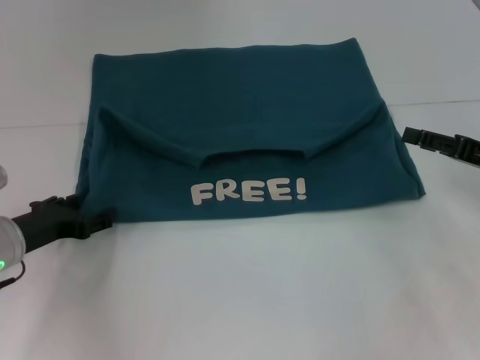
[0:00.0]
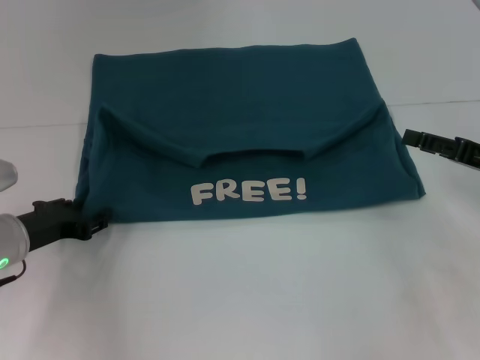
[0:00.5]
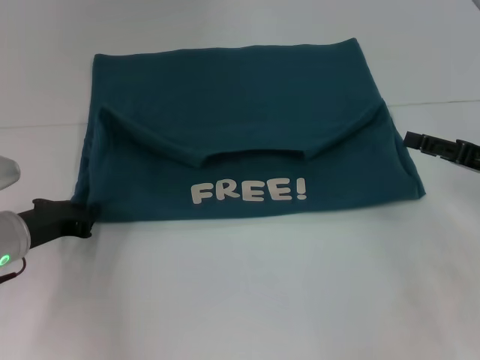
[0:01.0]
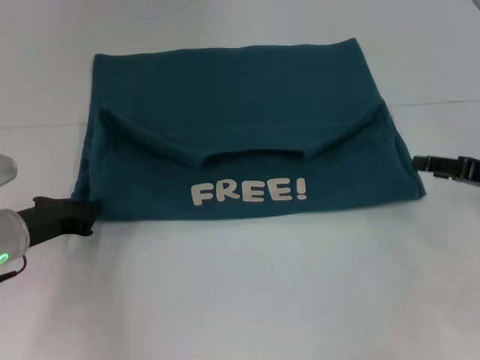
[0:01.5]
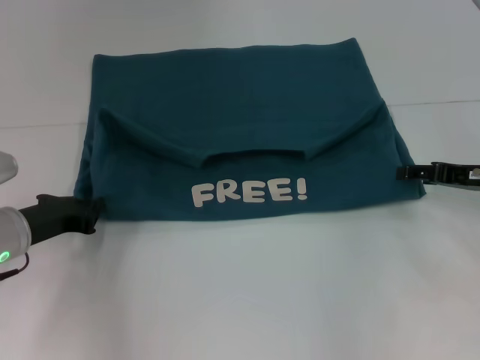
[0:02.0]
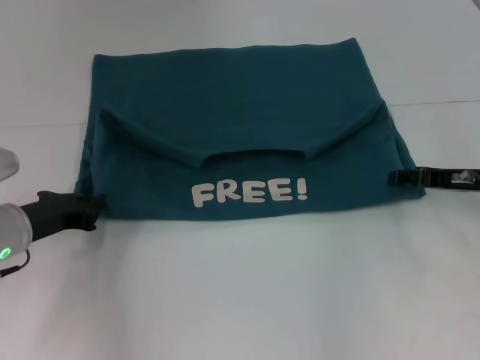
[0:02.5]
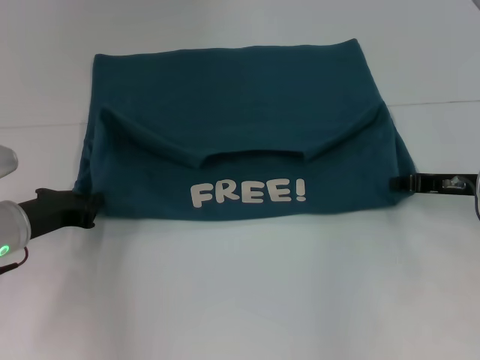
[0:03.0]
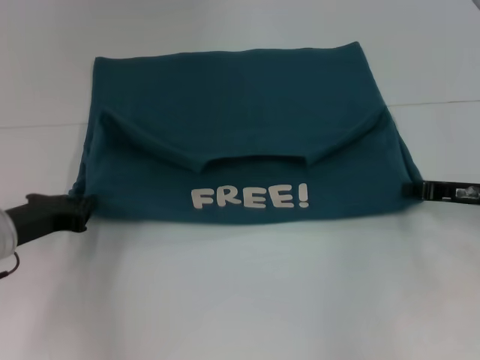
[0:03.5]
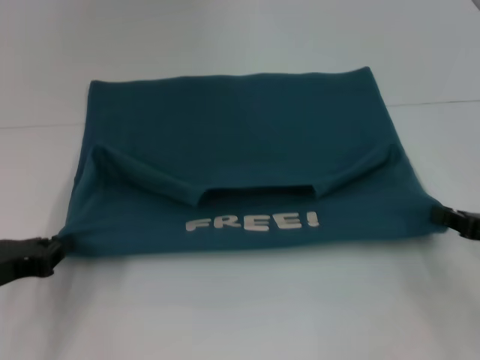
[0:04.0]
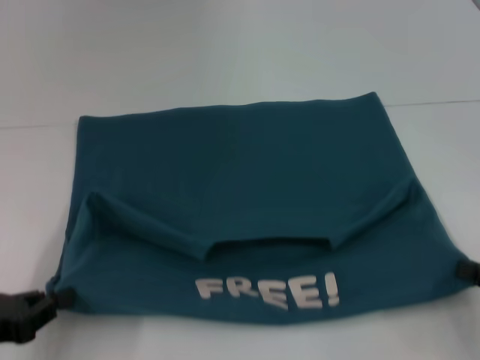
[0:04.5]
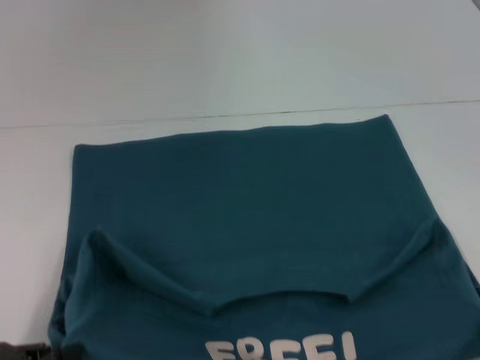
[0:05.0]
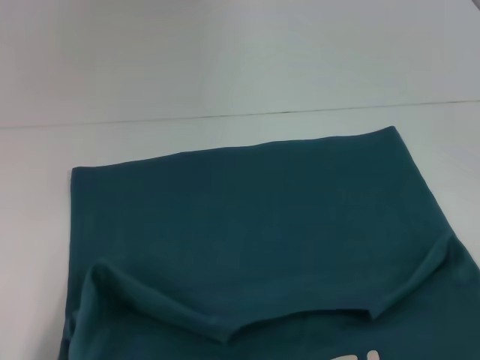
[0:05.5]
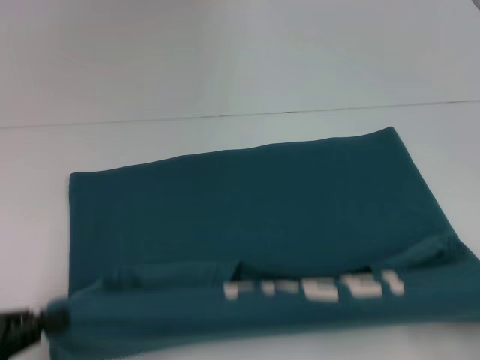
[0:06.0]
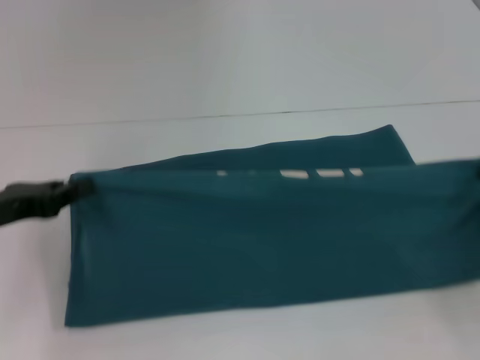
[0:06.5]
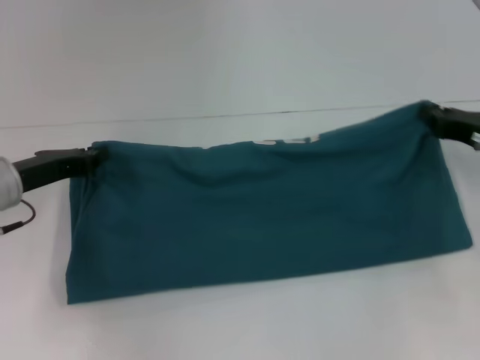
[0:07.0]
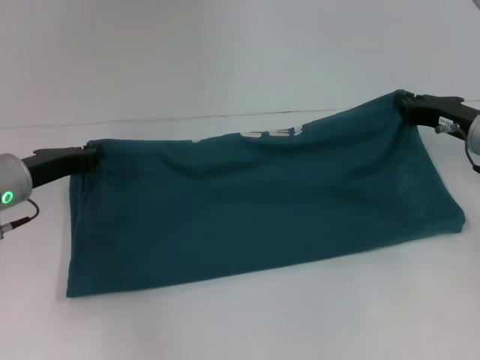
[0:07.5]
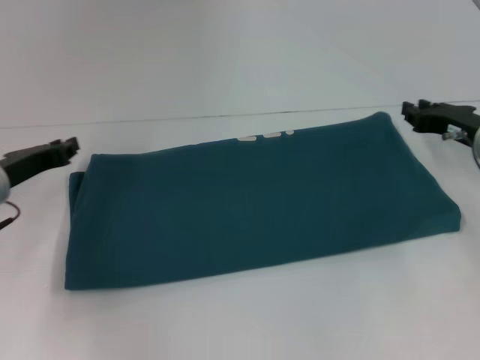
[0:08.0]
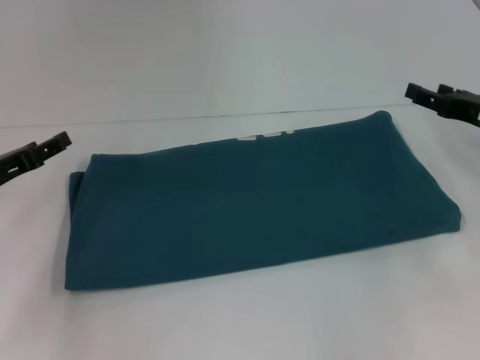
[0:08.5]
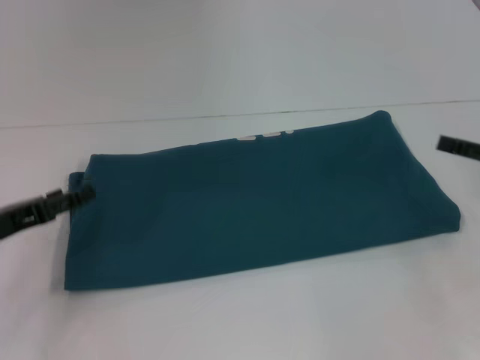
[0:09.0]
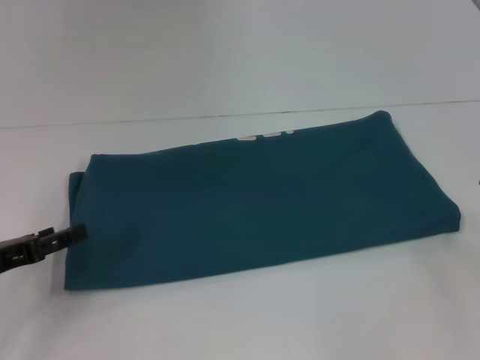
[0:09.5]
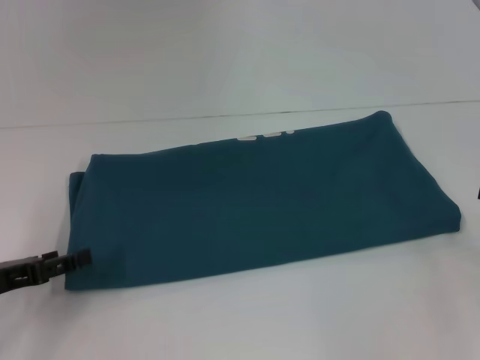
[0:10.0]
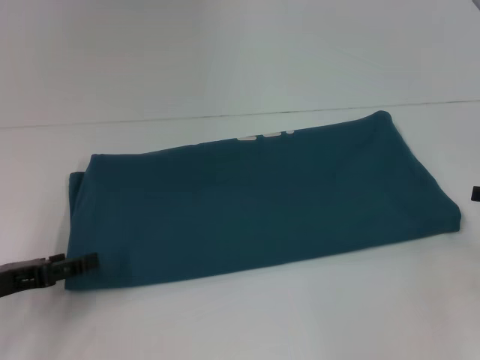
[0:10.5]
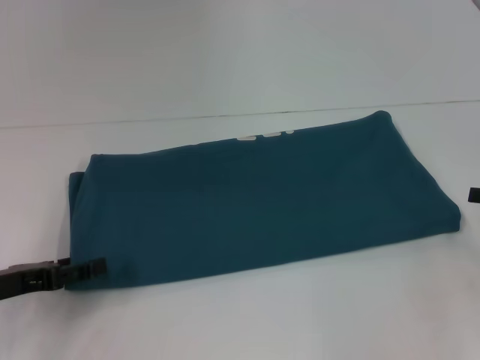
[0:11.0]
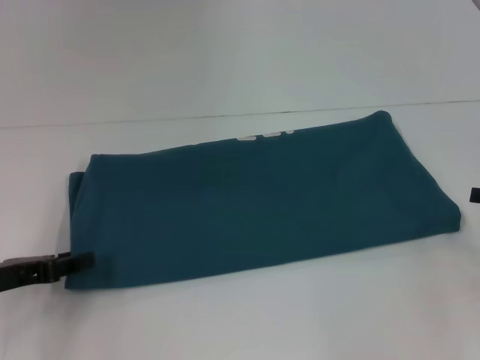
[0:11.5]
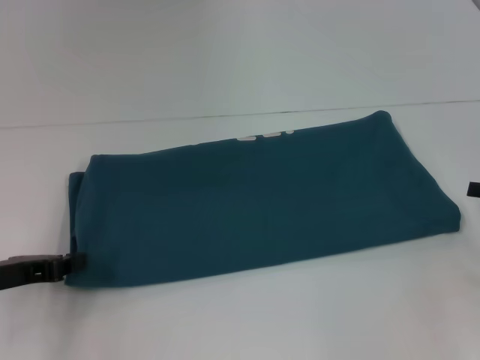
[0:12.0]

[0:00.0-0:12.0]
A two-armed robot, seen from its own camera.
Step, 0:00.0 to 0:05.0: Pull the clothes with your left hand.
Step, 0:00.0 to 0:05.0: Pull the clothes with your right hand.
Step, 0:05.5 to 0:08.0: Fold the clothes to the right.
0:00.0 to 0:02.0: The left gripper closes.
0:02.0 to 0:04.0: Both grippers move backward, about 10 cm. The right gripper closes up.
0:04.0 to 0:06.0: The left gripper shifts some 10 cm backward; the right gripper heads backward, covering some 15 cm.
0:06.0 to 0:08.0: The grippers both shift forward by some 25 cm.
0:08.0 to 0:10.0: The left gripper travels backward by some 10 cm, and opens its fingers; the right gripper goes some 15 cm backward and to the right, and opens up.

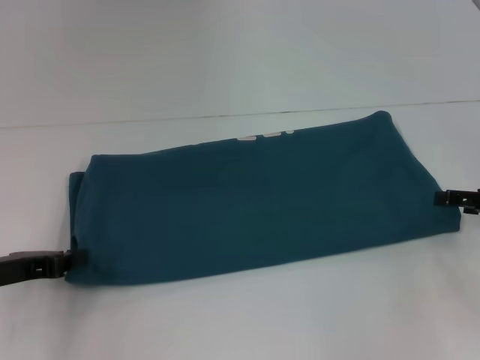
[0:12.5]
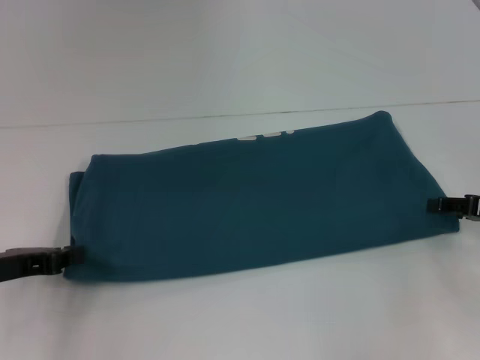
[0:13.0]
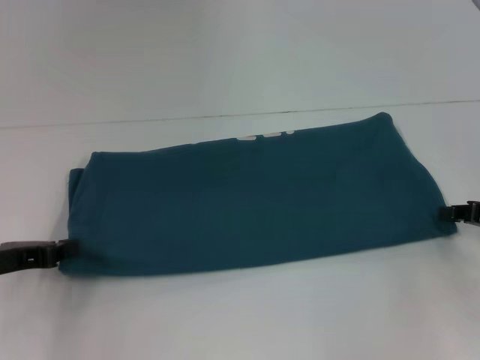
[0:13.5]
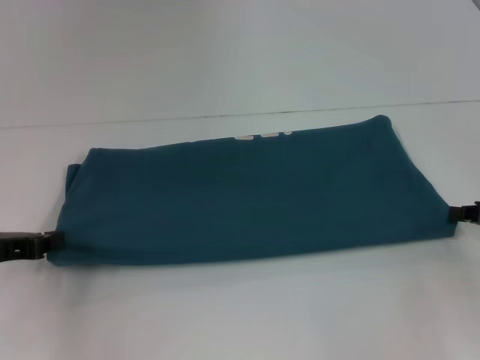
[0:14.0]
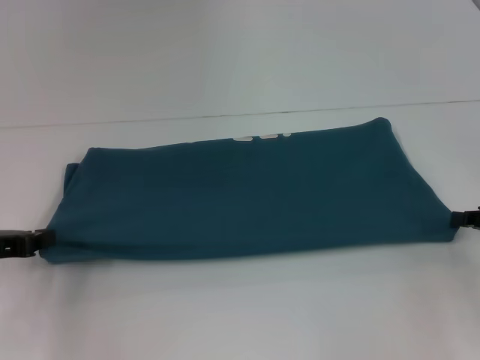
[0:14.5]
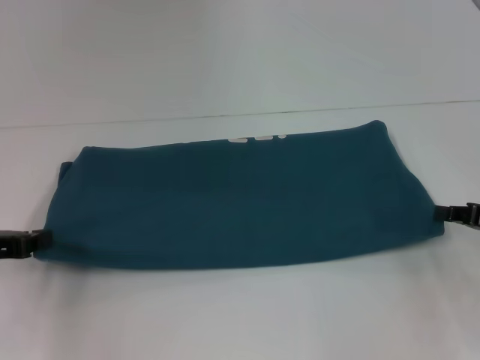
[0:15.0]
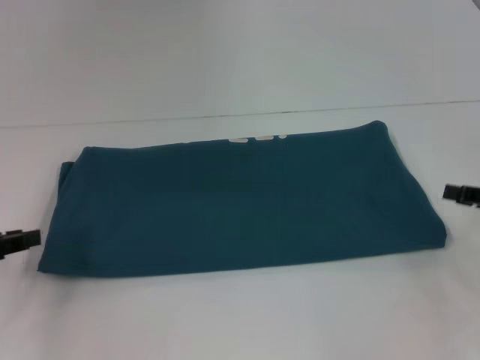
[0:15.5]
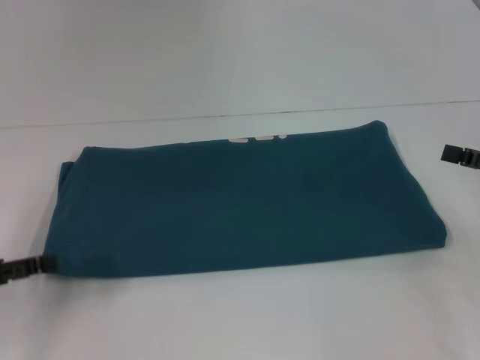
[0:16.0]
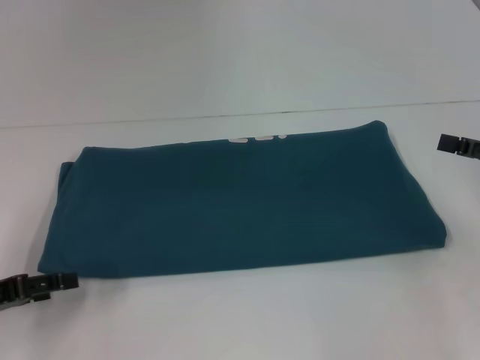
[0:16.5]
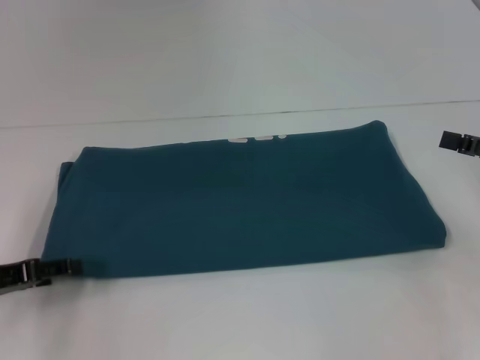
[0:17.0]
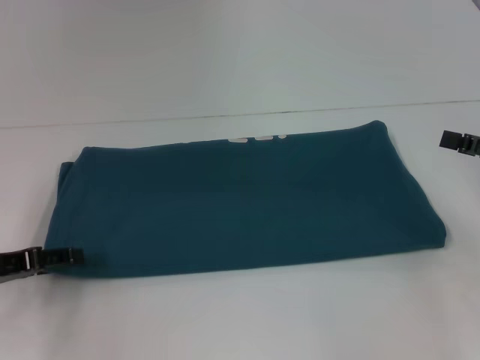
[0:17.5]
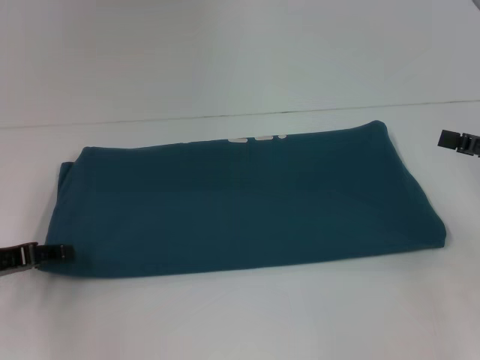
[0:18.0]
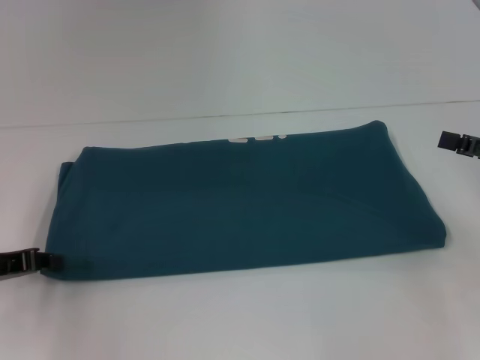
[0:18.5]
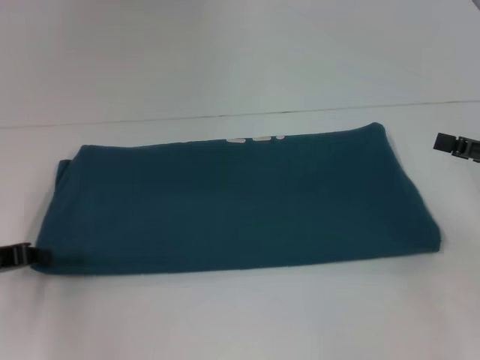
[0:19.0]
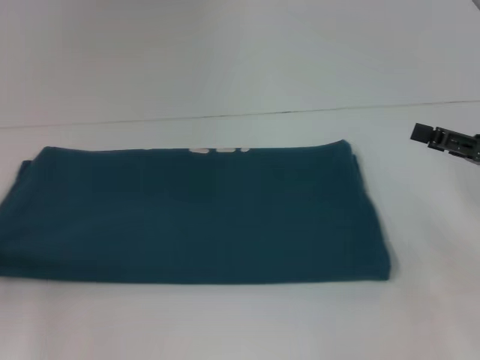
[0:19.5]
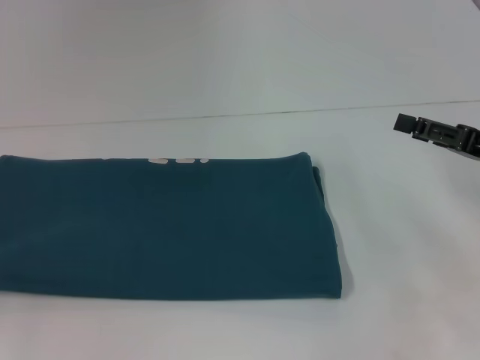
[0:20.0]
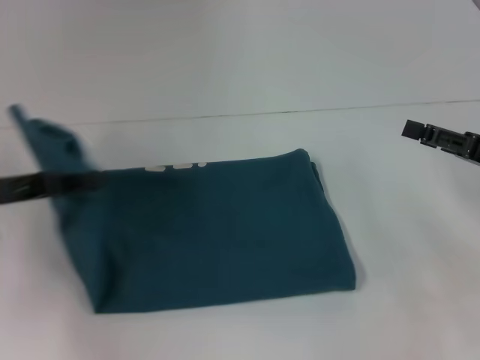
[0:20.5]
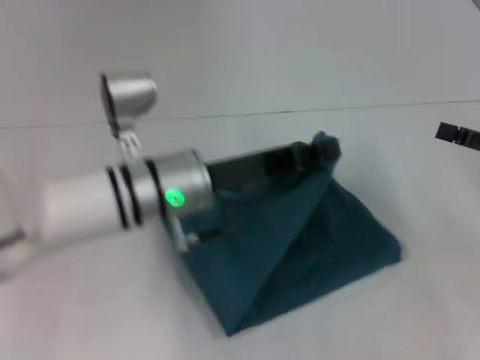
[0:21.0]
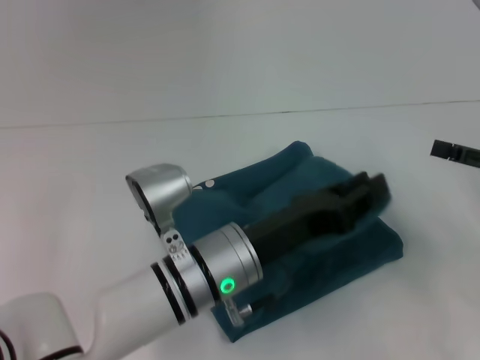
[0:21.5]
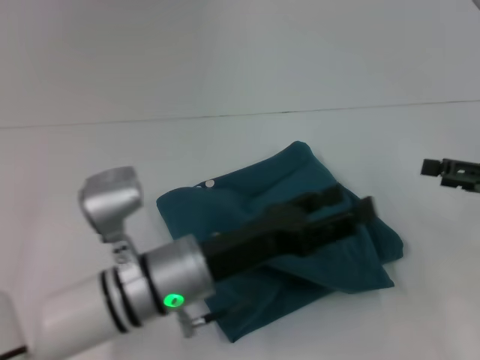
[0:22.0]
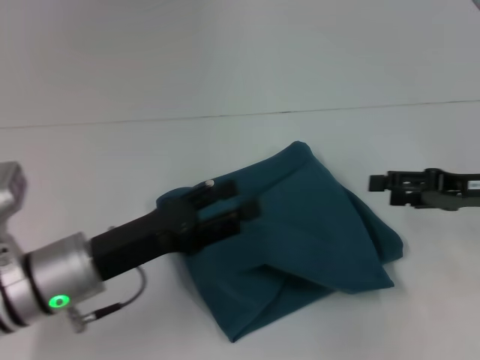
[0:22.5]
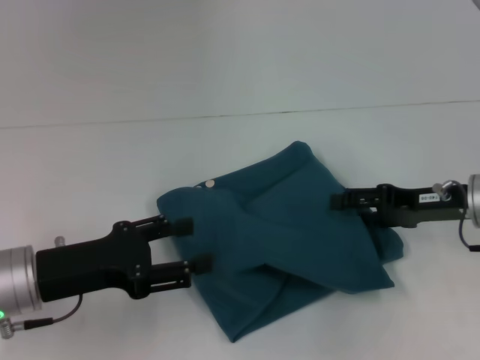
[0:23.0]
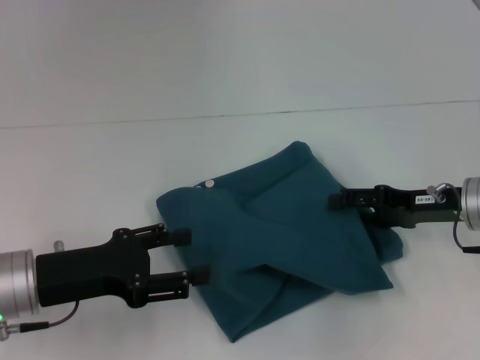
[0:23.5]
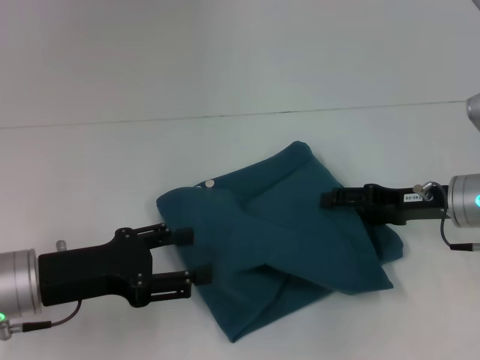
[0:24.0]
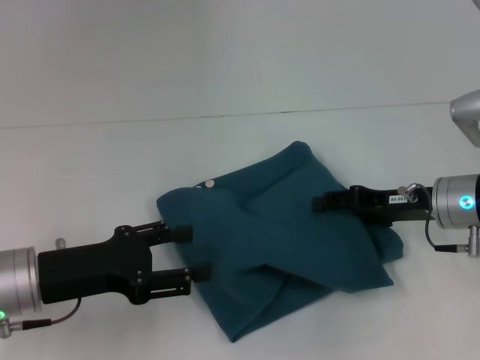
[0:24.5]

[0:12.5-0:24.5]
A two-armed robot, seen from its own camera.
Step, 0:12.5 to 0:21.5: Fold the clothes to the left.
0:12.5 to 0:14.5: The right gripper closes its fingers.
0:14.5 to 0:16.5: The left gripper opens. The right gripper shifts some 5 cm upward, and opens its fingers.
0:16.5 to 0:18.5: The left gripper closes its fingers.
0:18.5 to 0:20.5: The left gripper travels upward by some 5 cm, moves approximately 10 cm to the left and comes back, and closes.
0:20.5 to 0:22.5: The left gripper is displaced to the right and downward by about 15 cm, and opens.
0:22.5 to 0:24.5: The two grippers go roughly 5 cm to the left.

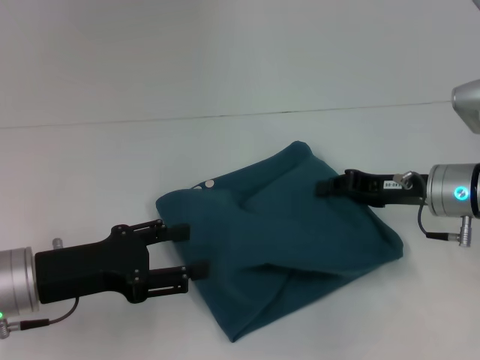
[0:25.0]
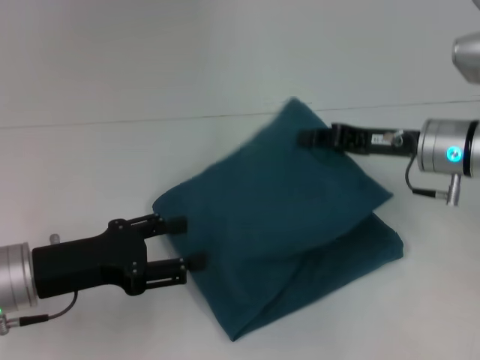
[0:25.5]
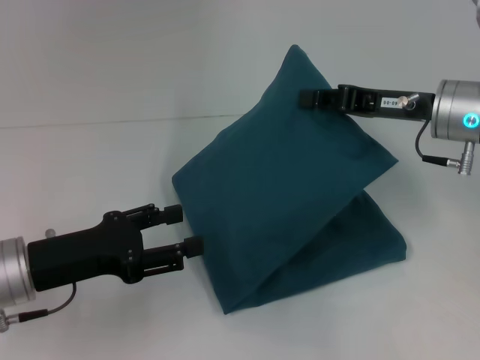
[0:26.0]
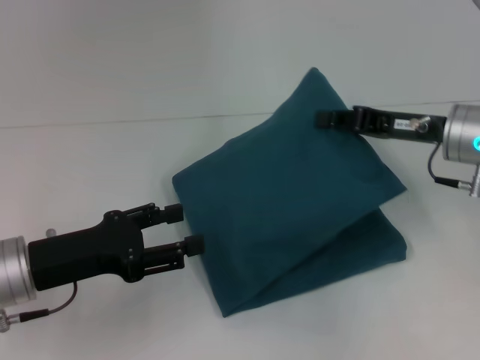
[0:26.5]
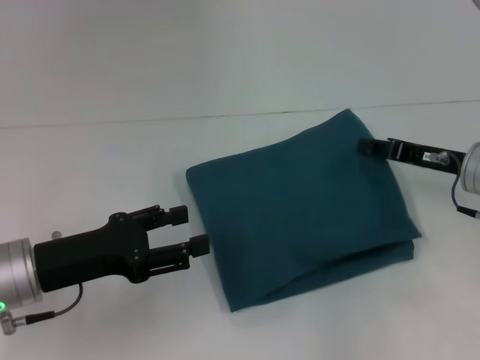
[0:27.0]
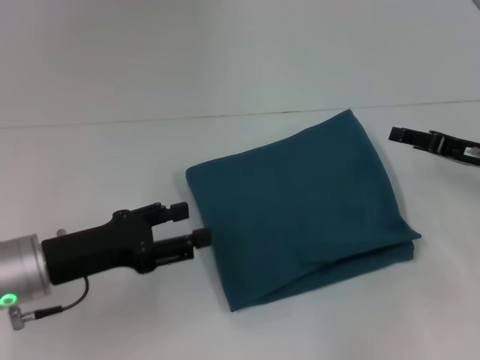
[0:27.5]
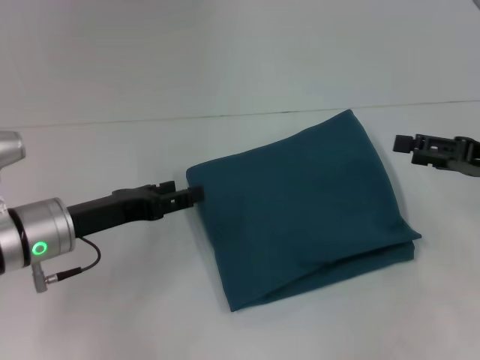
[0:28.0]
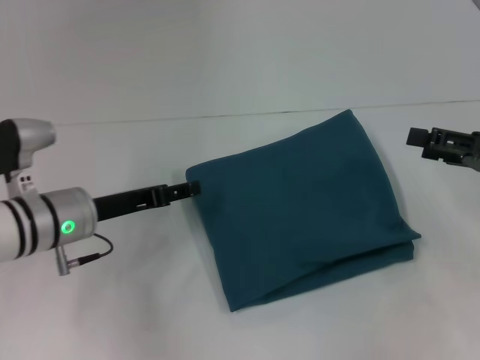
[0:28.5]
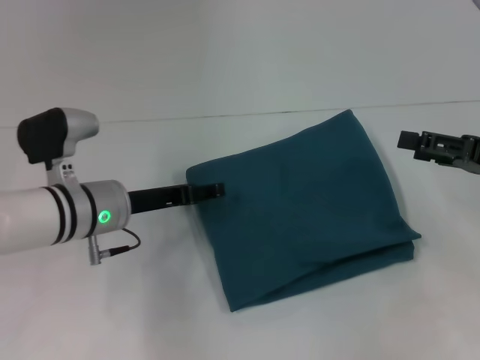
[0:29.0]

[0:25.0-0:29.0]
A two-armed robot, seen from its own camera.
0:27.0 to 0:29.0: The right gripper heads to the right, covering about 5 cm, and opens up, while the left gripper shifts about 10 cm forward and to the right.
